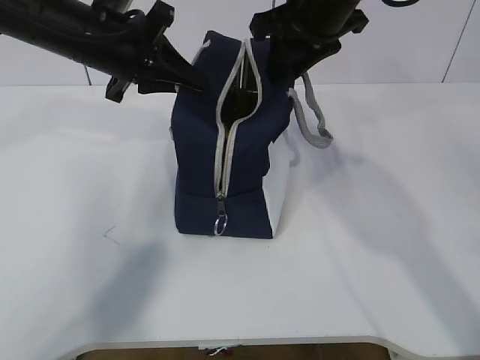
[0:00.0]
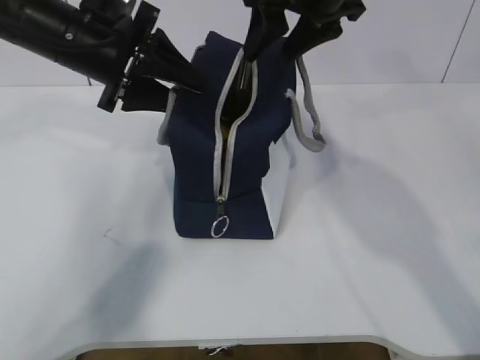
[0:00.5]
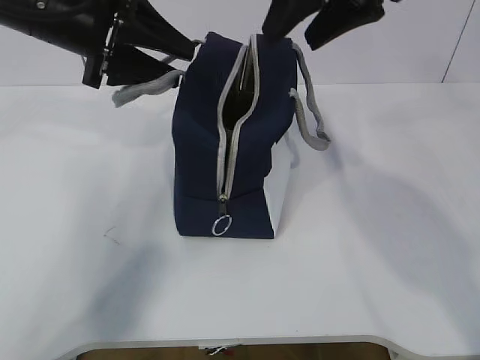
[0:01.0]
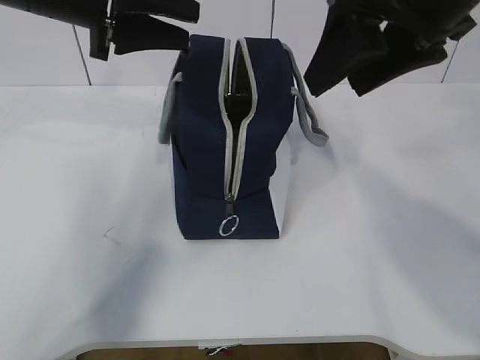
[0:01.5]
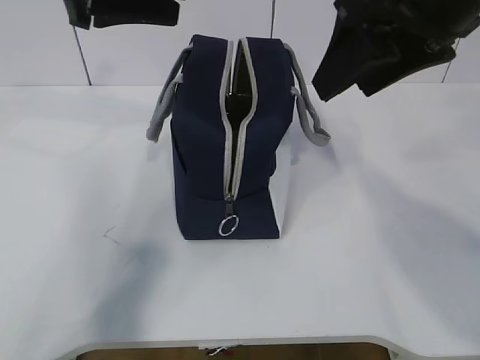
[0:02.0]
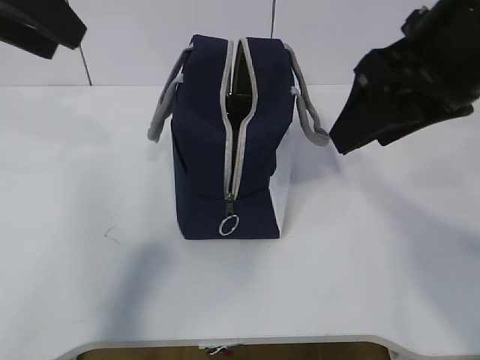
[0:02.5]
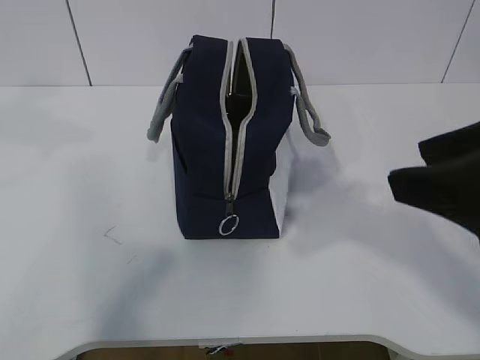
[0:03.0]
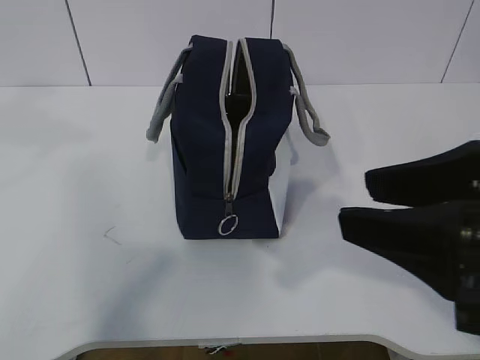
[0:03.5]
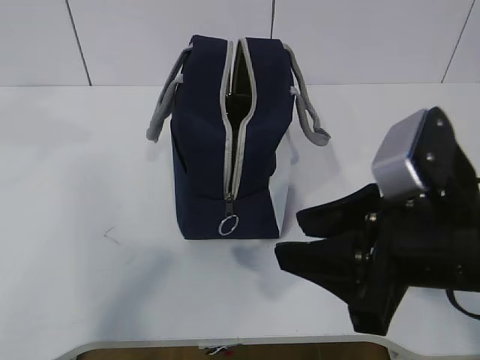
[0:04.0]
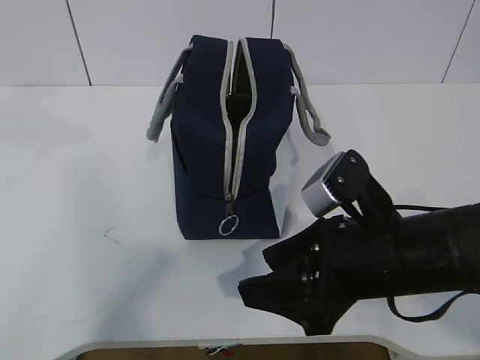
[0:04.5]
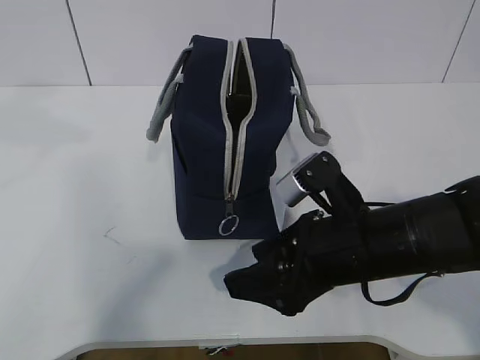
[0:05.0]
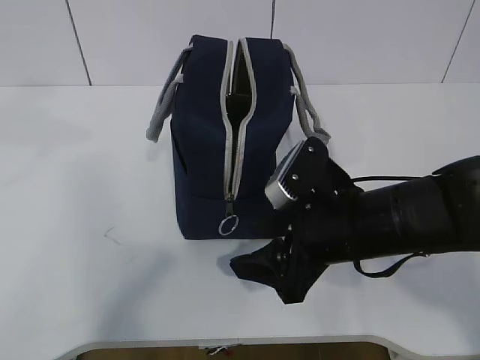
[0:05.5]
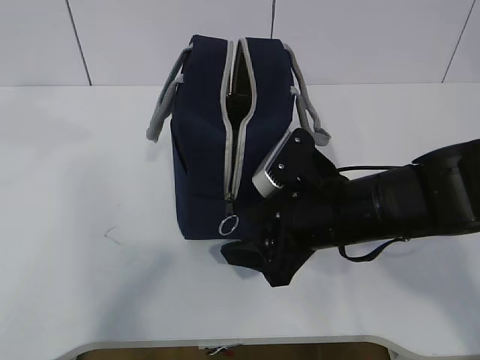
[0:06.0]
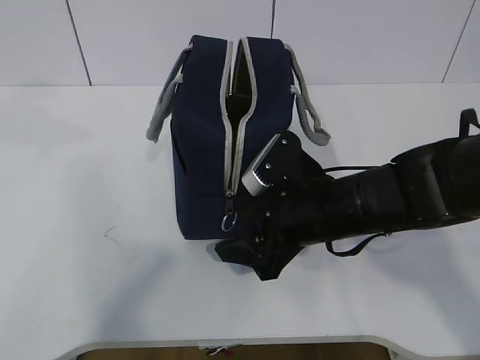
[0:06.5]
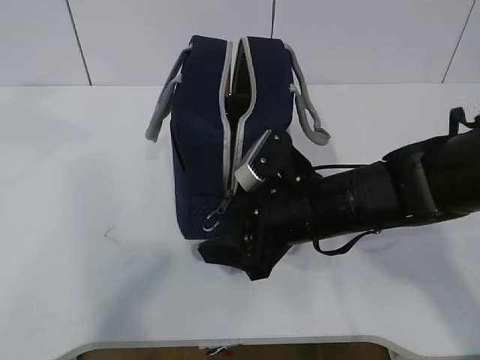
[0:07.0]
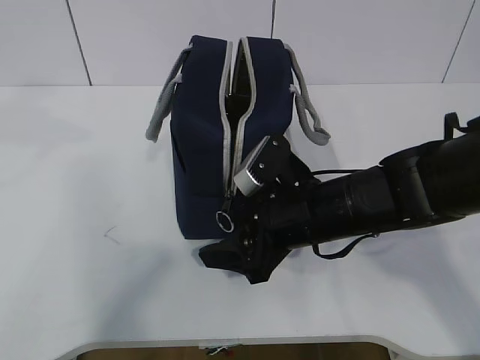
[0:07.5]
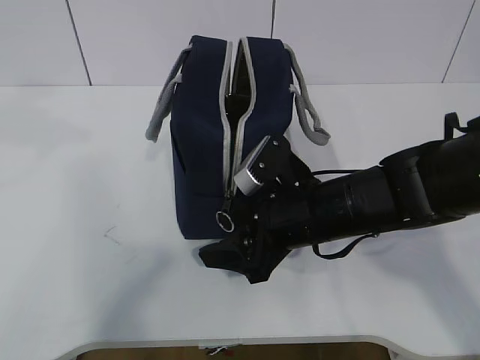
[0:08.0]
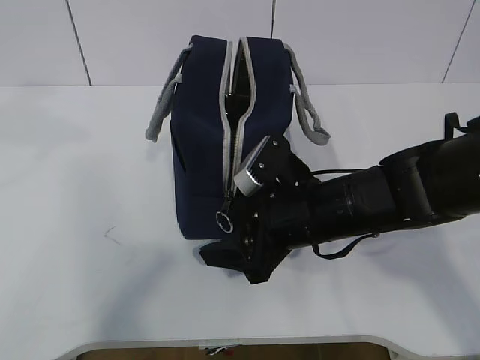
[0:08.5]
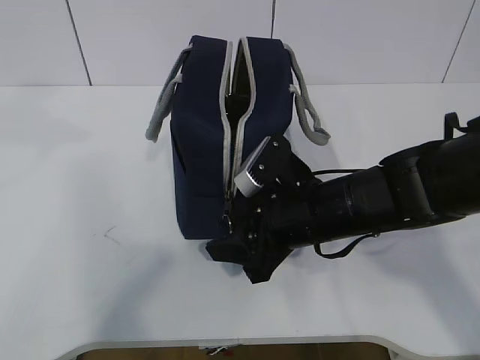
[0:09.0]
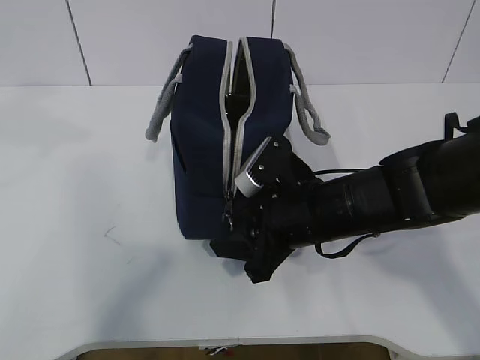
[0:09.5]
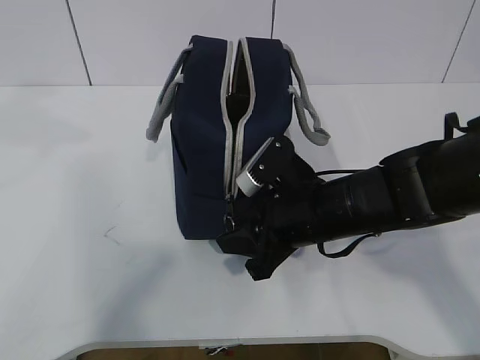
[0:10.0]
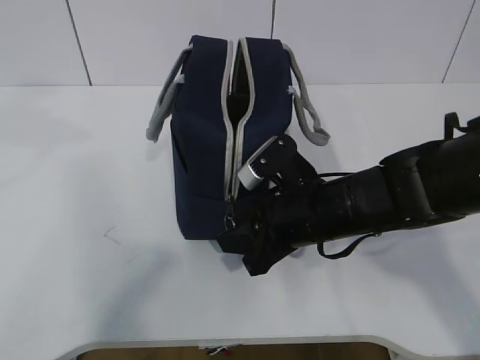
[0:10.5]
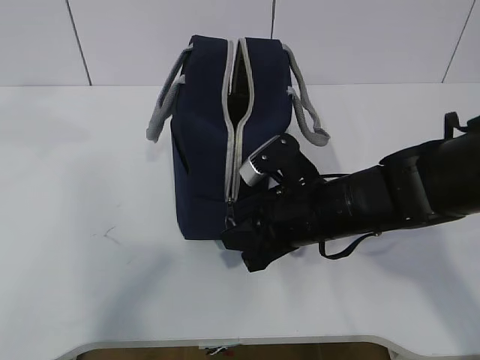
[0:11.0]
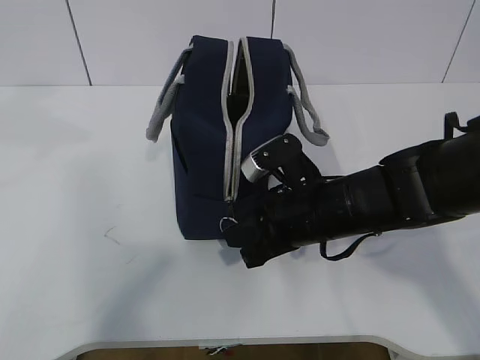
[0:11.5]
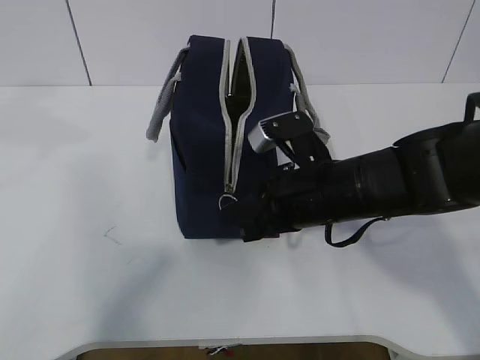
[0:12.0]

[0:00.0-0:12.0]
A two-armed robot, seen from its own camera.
0:00.0 to 0:02.0: The left gripper shifts approximately 10 cm upward and backward, and opens up. The right gripper shifts roughly 15 cm backward, and opens its fingers.
0:02.0 to 0:04.0: The right gripper travels downward and backward by approximately 20 cm, while the left gripper is displaced backward and upward by about 15 cm.
0:04.0 to 0:06.0: The right gripper travels forward and downward by some 10 cm.
0:06.0 to 0:08.0: There are only small adjustments of the grippers.
0:08.0 to 0:10.0: The right gripper closes.
0:10.0 to 0:12.0: The right gripper closes.

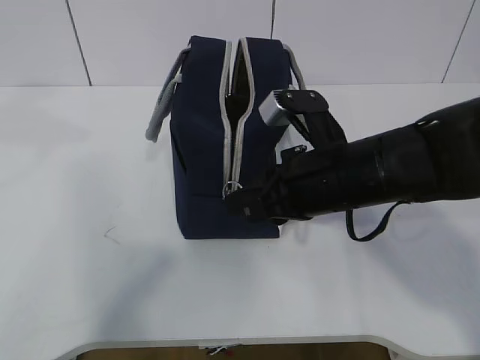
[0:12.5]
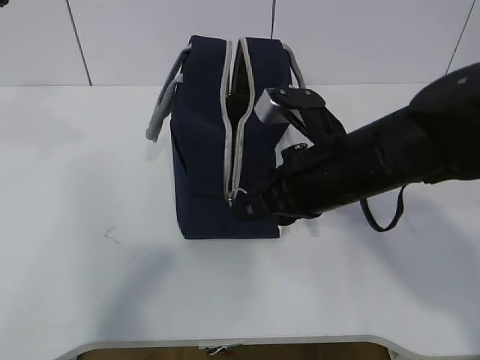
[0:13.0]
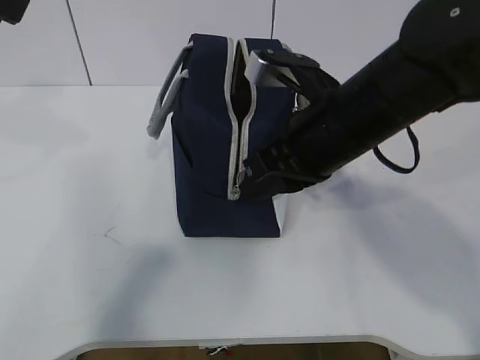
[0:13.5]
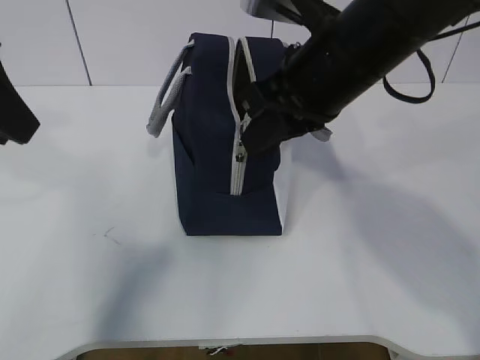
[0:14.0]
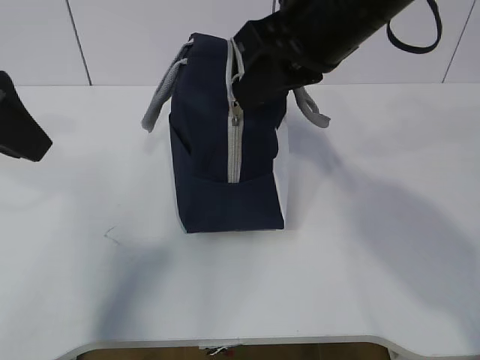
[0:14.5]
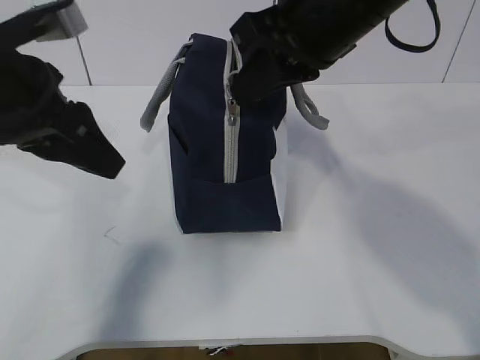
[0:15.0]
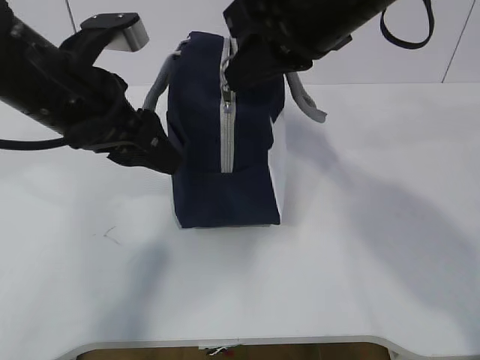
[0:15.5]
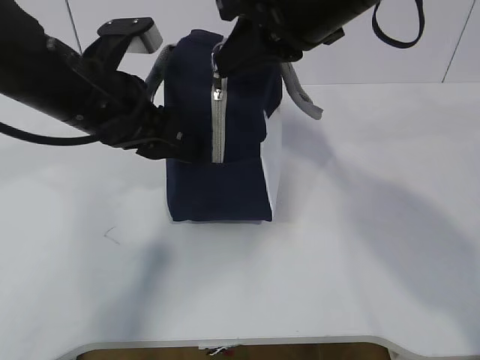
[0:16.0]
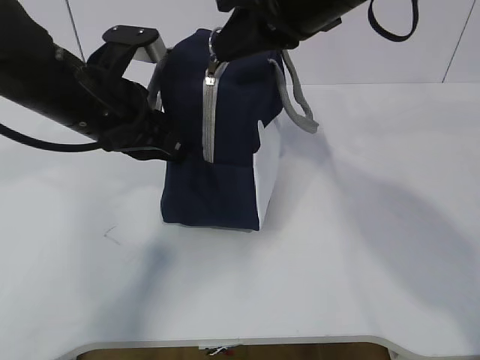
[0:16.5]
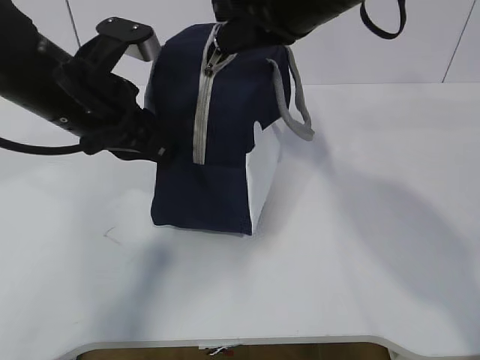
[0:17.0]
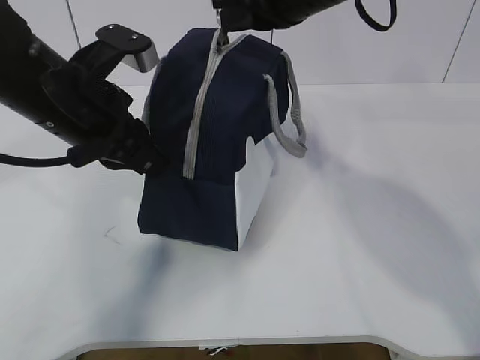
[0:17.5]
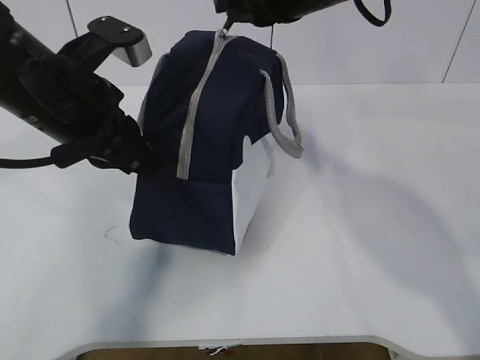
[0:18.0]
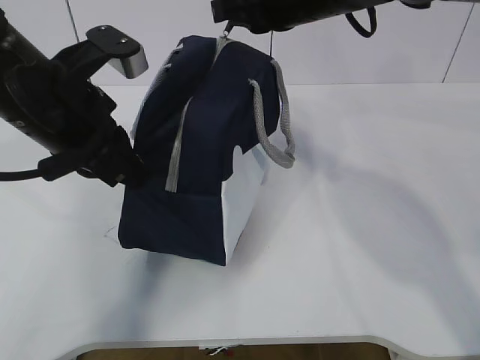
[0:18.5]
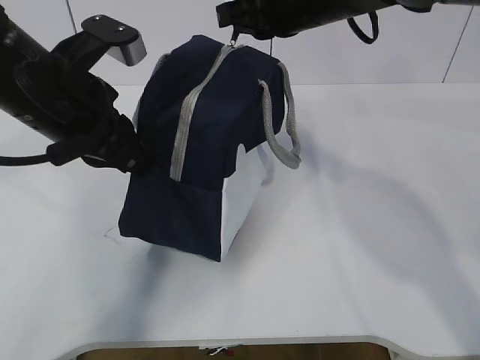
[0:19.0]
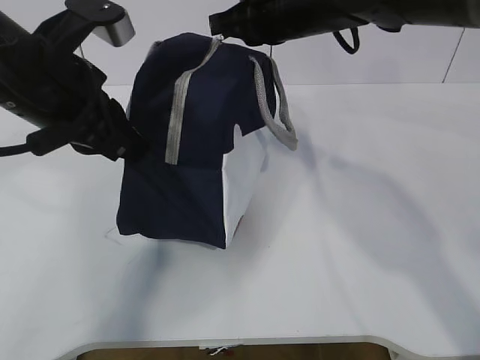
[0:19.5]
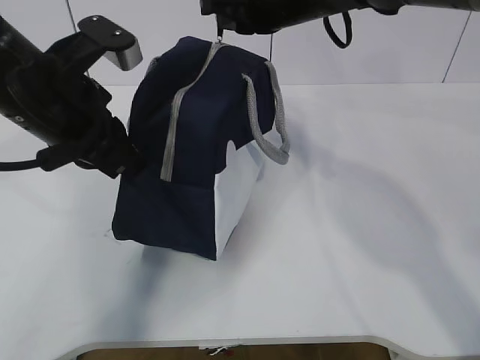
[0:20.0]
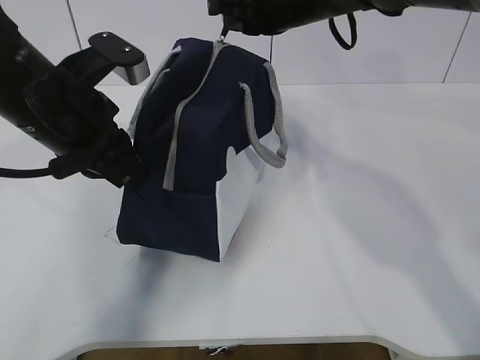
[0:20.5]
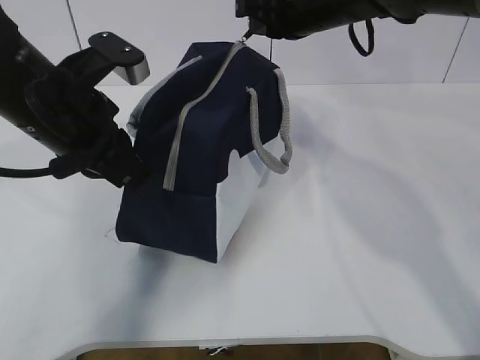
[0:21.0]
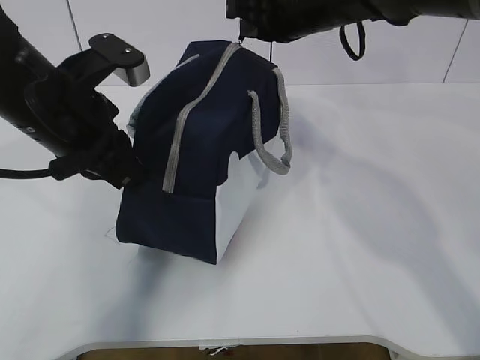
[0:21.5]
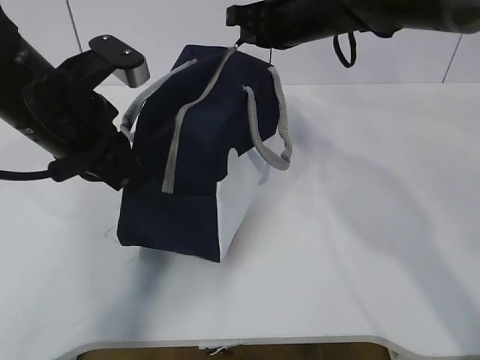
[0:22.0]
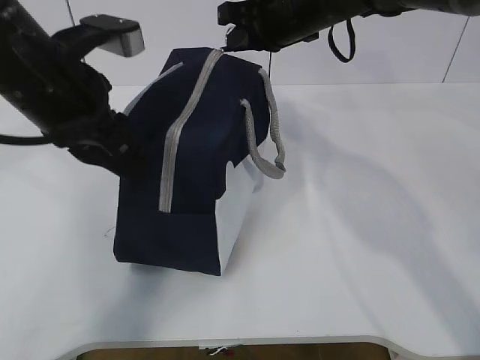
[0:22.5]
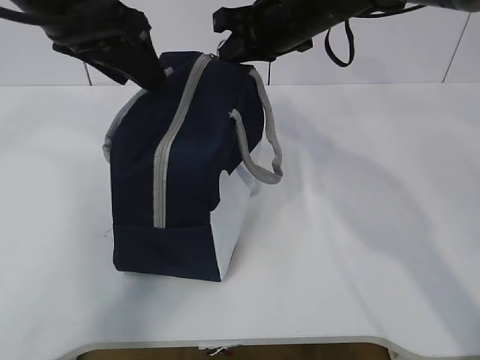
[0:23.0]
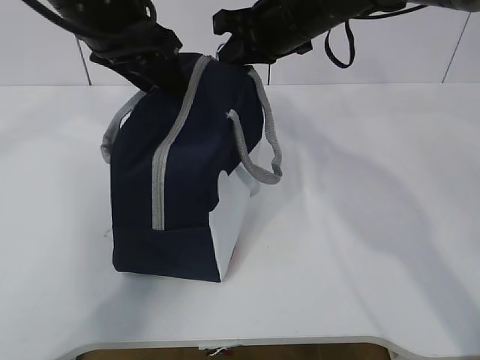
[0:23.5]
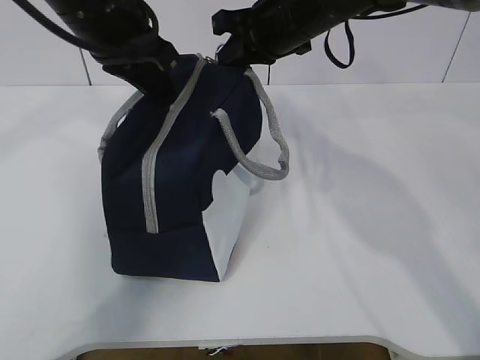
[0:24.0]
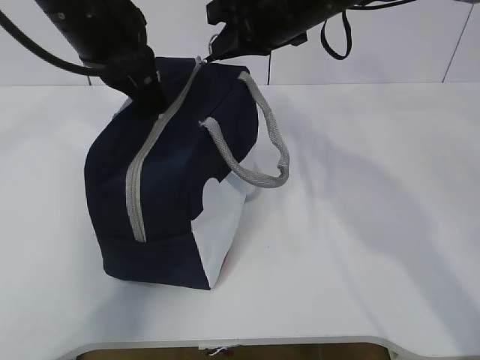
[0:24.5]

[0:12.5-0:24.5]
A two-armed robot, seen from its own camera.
Step, 0:14.0 to 0:17.0: Pull the zipper with your right hand.
0:12.5 to 0:14.5: The right gripper travels upward by approximately 15 cm. The left gripper is displaced downward by roughly 10 cm.
0:14.5 to 0:16.5: The left gripper goes about 15 cm downward, to the right and forward, and closes up.
0:16.5 to 0:18.5: The right gripper is displaced forward by approximately 5 cm.
0:18.5 to 0:20.5: The grippers make only small movements.
0:20.5 to 0:22.5: The left gripper opens up.
0:22.5 to 0:24.5: The left gripper travels forward by roughly 5 cm, and closes its fingers.

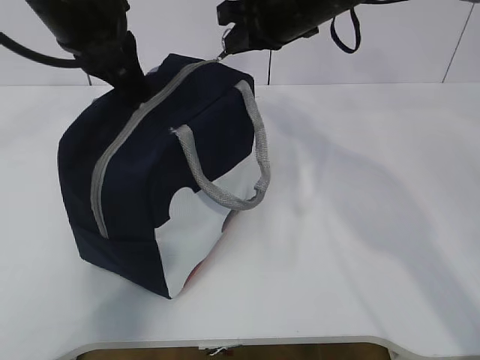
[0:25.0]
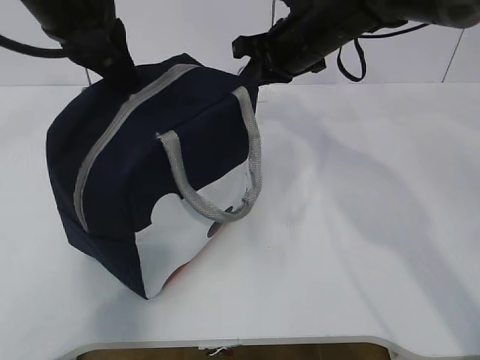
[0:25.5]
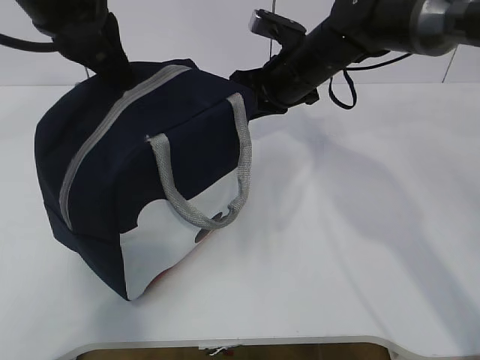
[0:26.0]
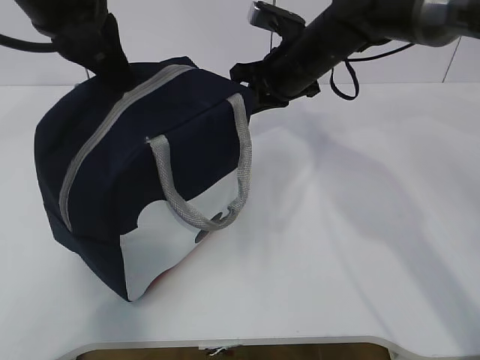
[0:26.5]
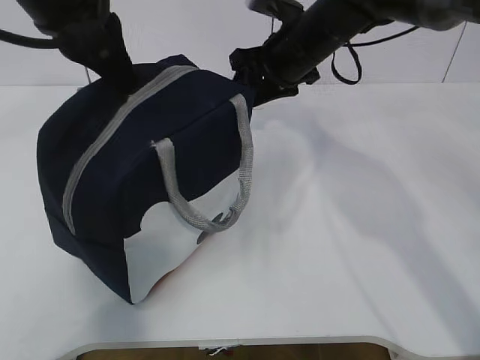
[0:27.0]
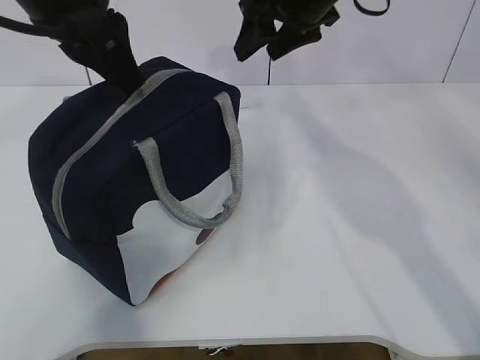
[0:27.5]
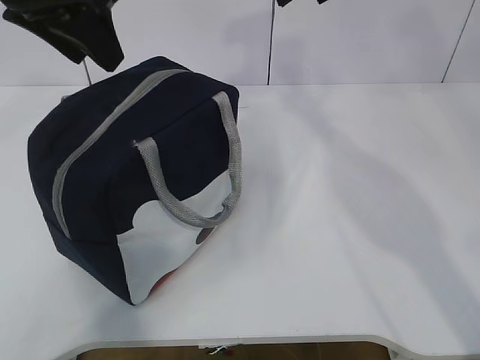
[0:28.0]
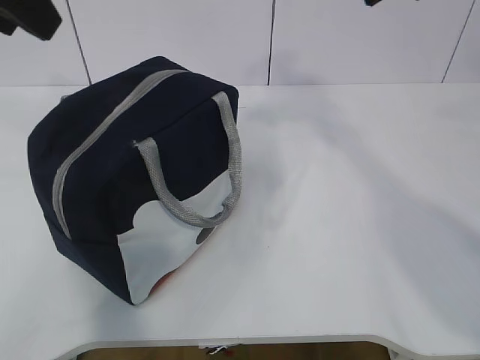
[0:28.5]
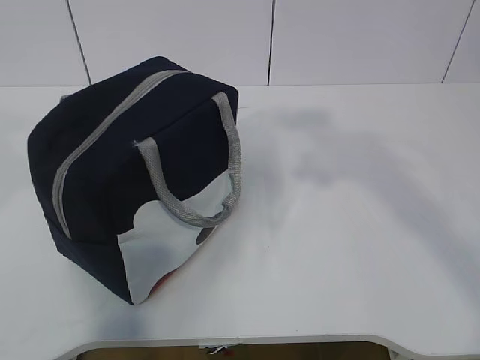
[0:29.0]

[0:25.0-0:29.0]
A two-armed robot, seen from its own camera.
0:25.0 to 0:27.0: The right gripper travels downward by approximately 5 cm, and opens up.
0:27.0 to 0:29.0: The left gripper moves backward, to the left and upward, about 20 cm, and opens its fingers; the right gripper heads backward, upward and to the right, covering about 35 cm.
